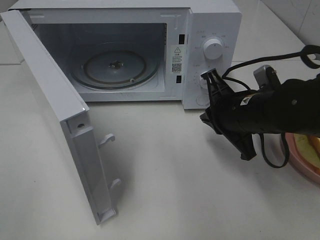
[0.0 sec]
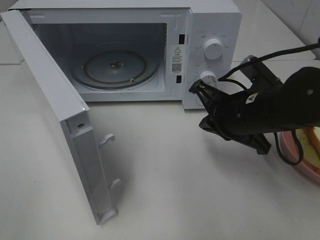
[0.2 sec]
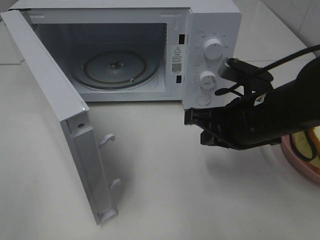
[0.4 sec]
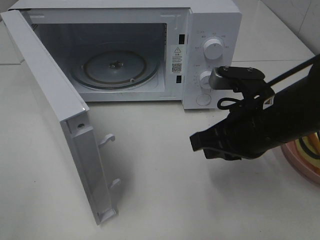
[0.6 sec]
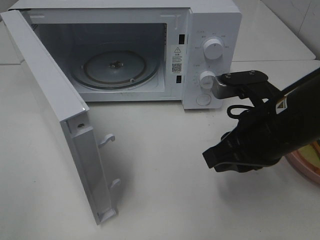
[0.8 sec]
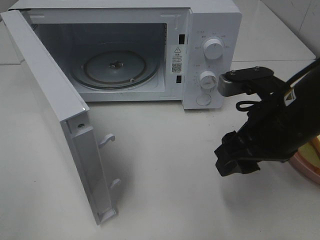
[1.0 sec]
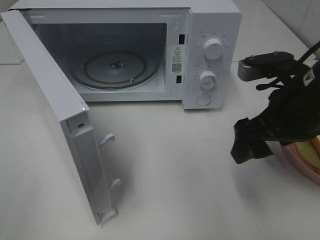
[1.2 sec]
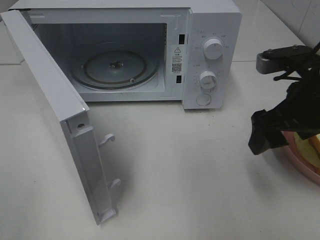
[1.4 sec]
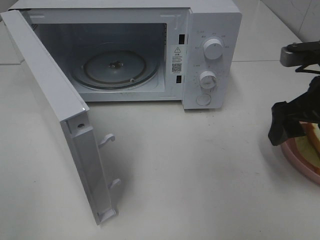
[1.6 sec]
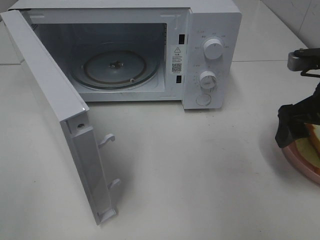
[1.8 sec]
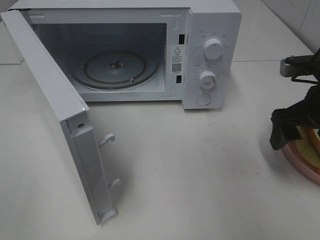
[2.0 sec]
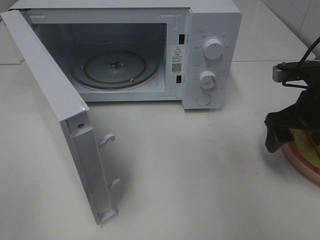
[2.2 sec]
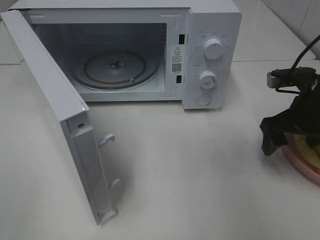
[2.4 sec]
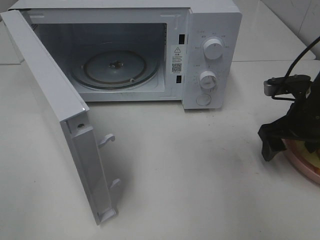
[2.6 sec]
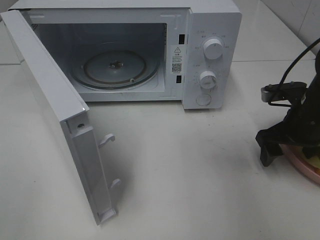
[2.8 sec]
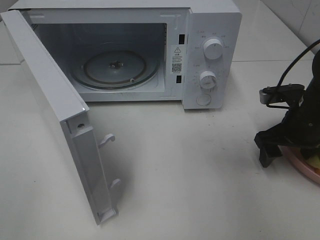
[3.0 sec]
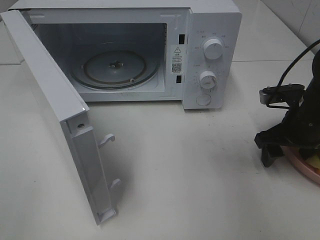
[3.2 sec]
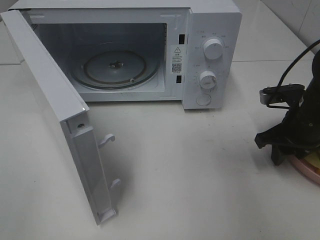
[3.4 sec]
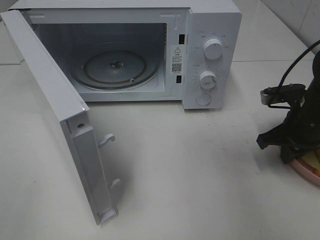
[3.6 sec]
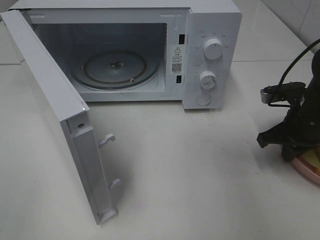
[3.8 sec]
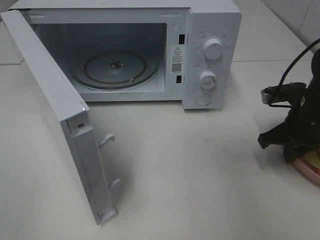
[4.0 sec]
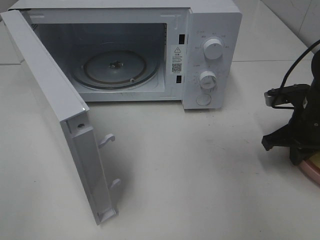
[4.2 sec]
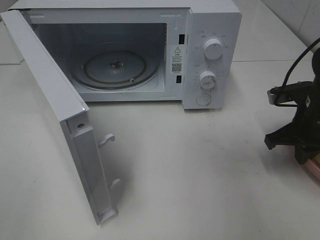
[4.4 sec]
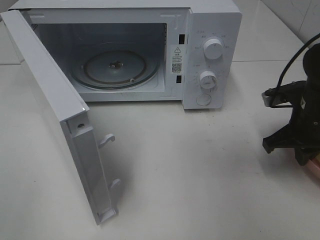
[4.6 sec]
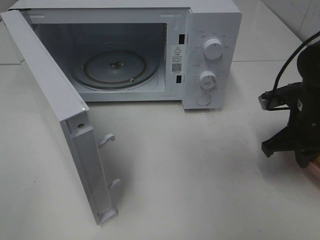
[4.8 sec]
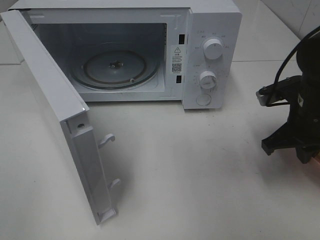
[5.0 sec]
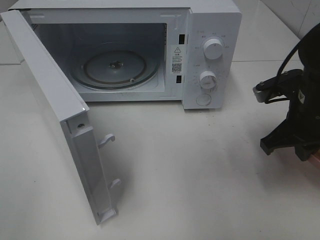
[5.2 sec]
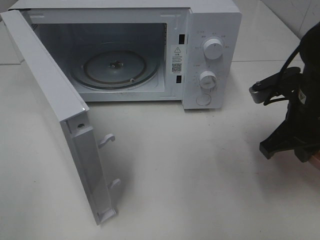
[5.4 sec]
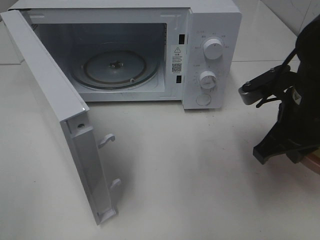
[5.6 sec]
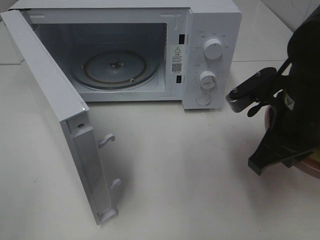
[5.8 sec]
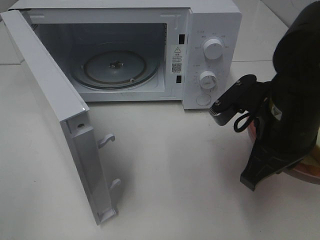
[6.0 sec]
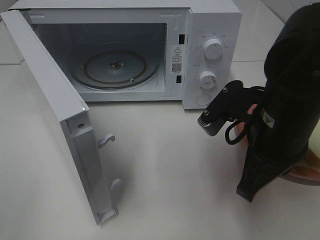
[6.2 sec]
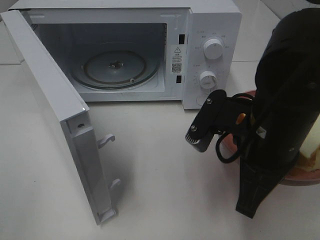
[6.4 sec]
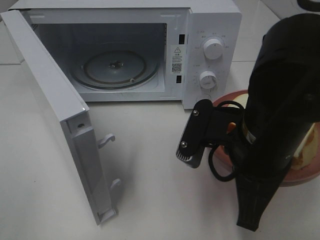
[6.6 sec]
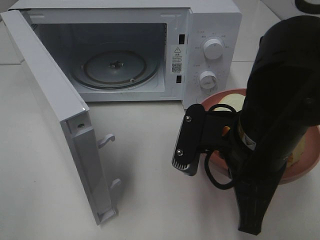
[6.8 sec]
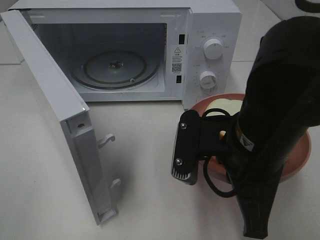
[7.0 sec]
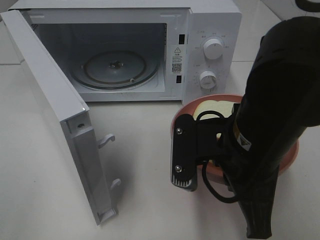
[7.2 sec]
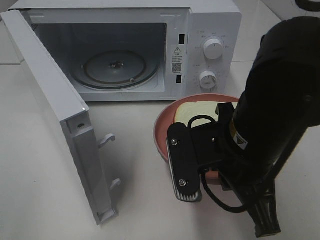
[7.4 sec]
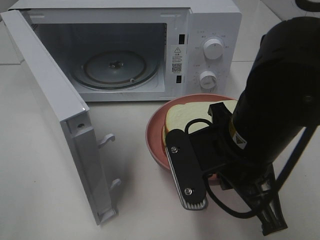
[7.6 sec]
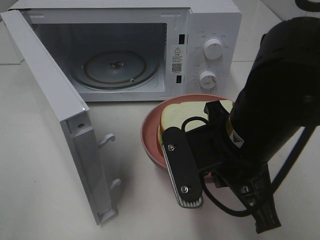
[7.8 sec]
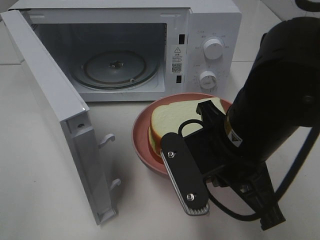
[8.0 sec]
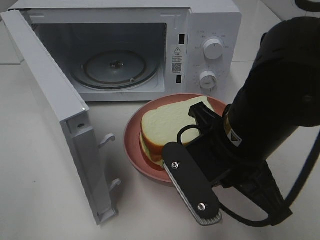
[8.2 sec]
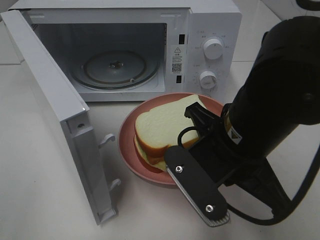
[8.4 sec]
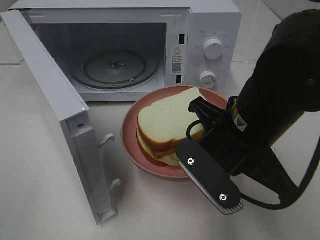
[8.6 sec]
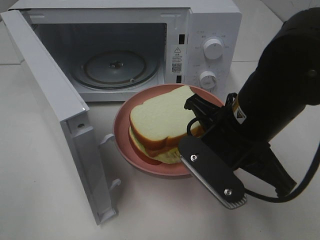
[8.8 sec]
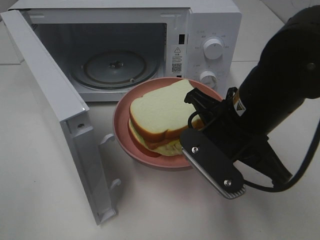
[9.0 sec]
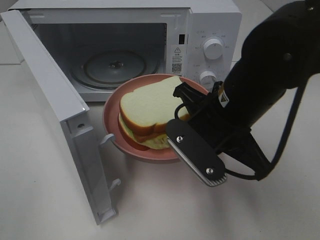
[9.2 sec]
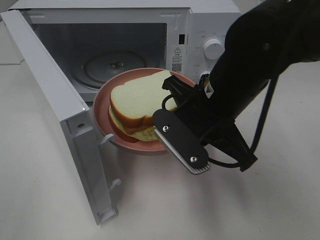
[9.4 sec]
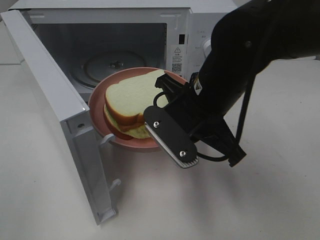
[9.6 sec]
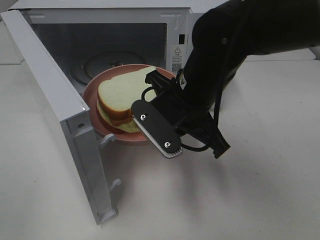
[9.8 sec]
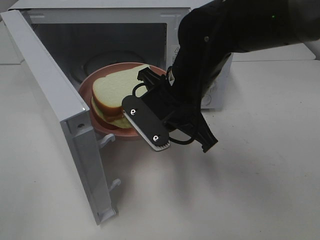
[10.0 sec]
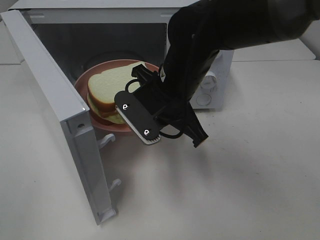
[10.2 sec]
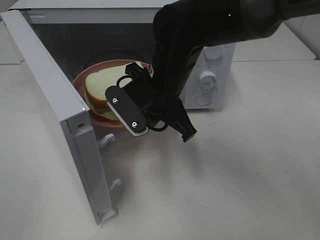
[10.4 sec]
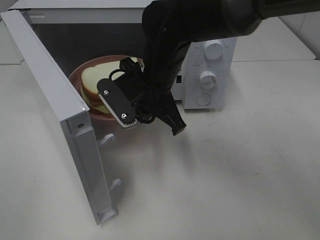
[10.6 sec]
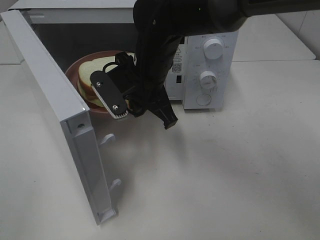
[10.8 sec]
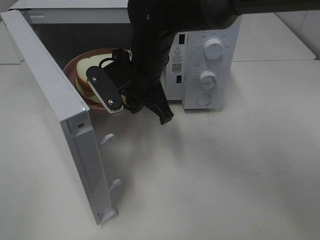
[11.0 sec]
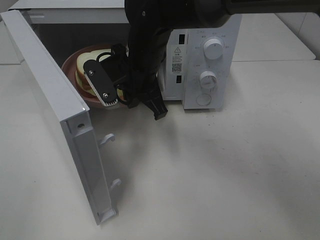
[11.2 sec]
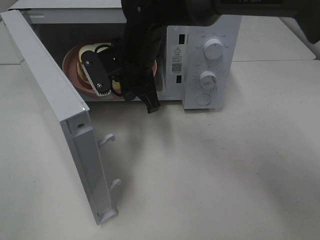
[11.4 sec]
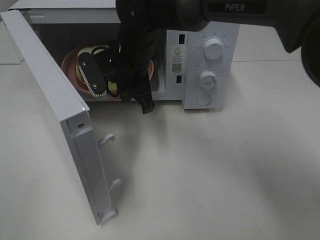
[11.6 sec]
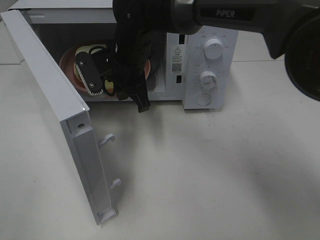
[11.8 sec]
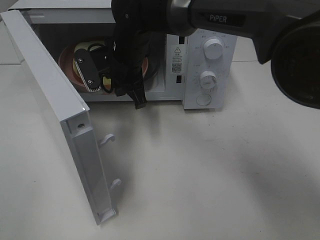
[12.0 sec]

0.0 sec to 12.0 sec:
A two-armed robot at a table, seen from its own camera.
Task of the whole recording: Heat Sandwich.
Step, 0.0 sec to 4.0 sec: Right hand: grab the plate with the sandwich.
0.0 sec to 1.6 sec: The right gripper moves to the right and upward, some 15 cm, and opens up.
1.6 sec to 3.0 sec: The right gripper is displaced downward and forward by roughly 10 cm.
3.0 sec to 4.4 sec: The right gripper closes up.
4.4 sec to 6.0 sec: The right gripper shifts some 15 cm to the left, backward and upward.
6.0 sec to 7.6 sec: The right gripper heads to the left, covering approximately 5 cm.
9.0 sec to 10.4 sec: The right gripper heads forward and to the left, covering about 15 cm.
10.4 sec to 12.0 sec: The right gripper travels forward and to the left by about 10 cm.

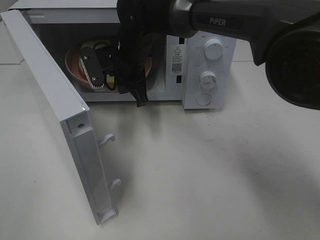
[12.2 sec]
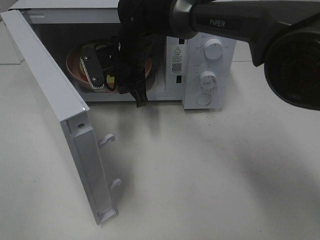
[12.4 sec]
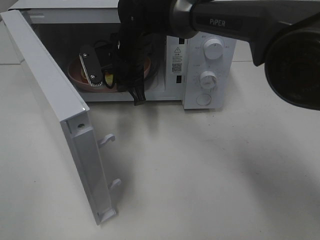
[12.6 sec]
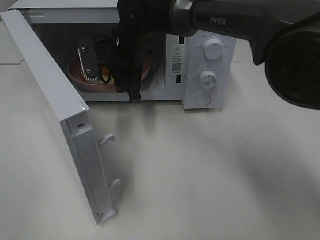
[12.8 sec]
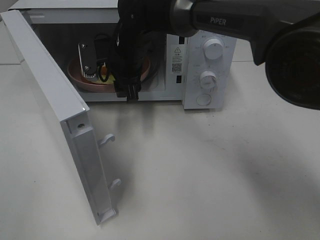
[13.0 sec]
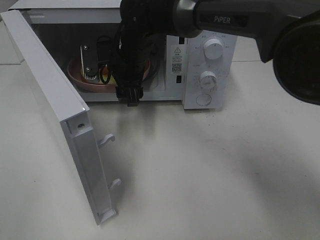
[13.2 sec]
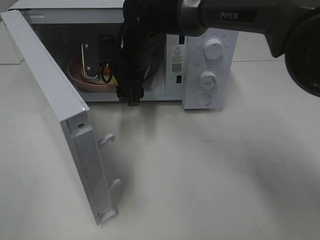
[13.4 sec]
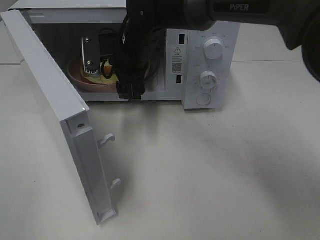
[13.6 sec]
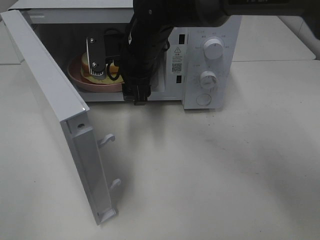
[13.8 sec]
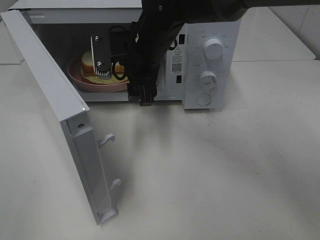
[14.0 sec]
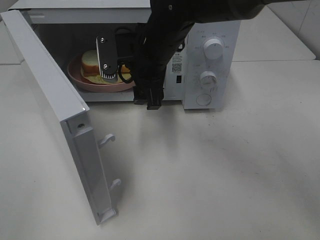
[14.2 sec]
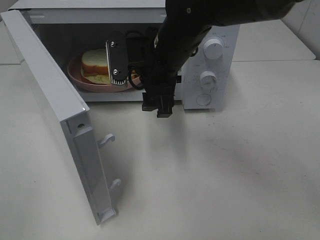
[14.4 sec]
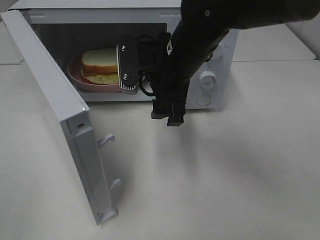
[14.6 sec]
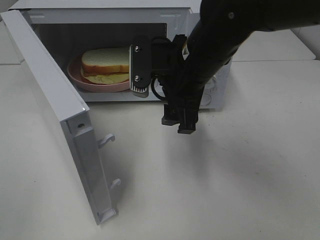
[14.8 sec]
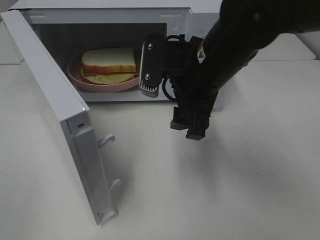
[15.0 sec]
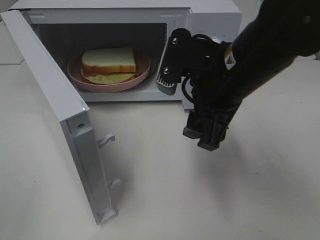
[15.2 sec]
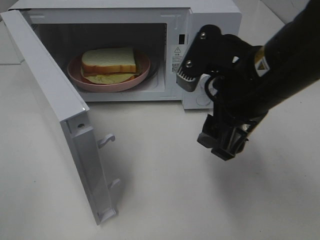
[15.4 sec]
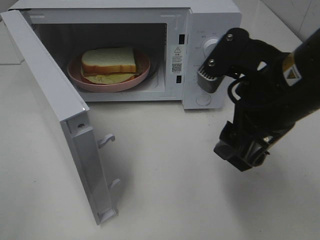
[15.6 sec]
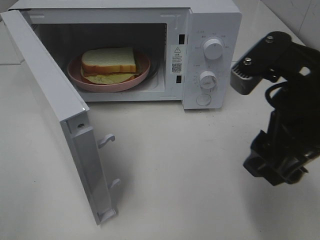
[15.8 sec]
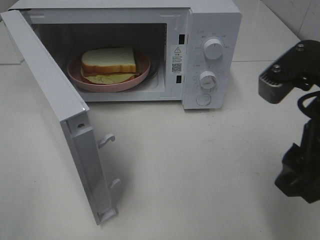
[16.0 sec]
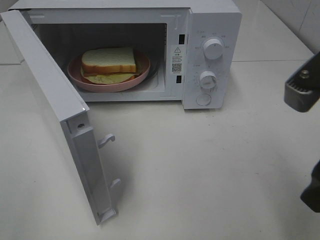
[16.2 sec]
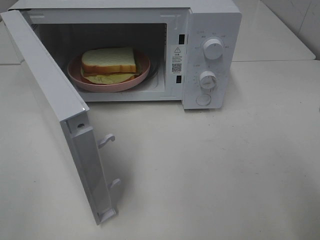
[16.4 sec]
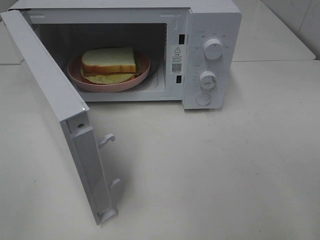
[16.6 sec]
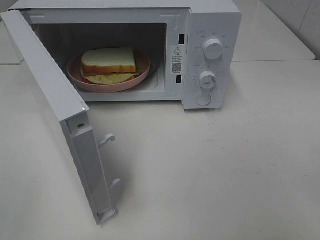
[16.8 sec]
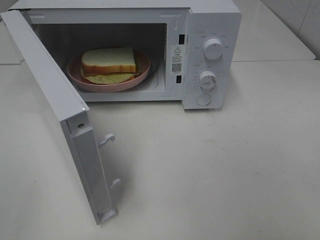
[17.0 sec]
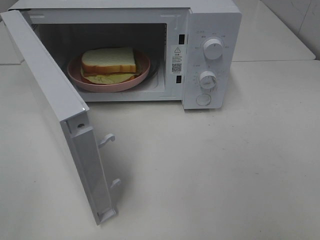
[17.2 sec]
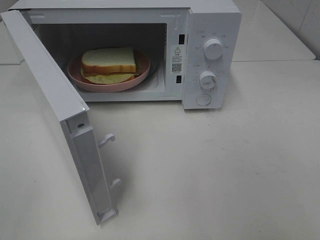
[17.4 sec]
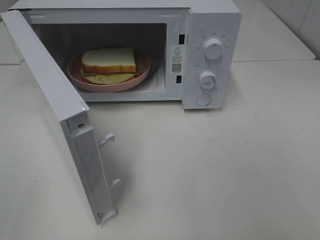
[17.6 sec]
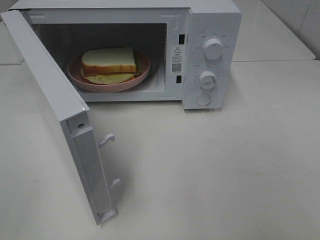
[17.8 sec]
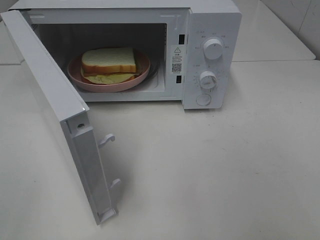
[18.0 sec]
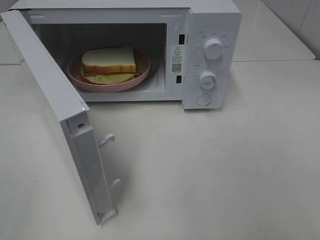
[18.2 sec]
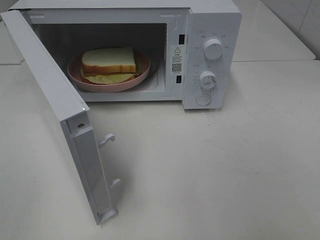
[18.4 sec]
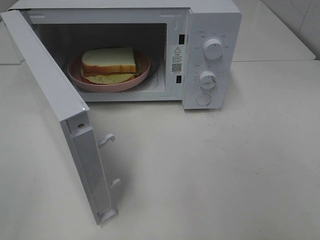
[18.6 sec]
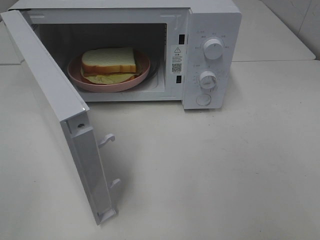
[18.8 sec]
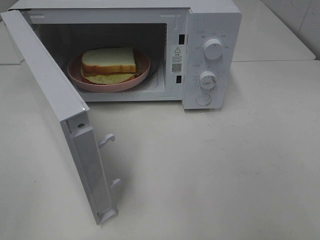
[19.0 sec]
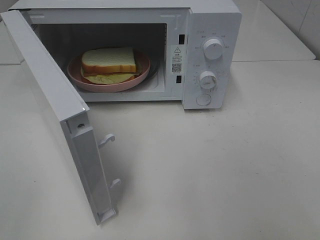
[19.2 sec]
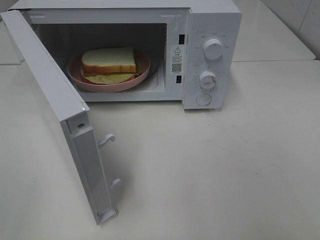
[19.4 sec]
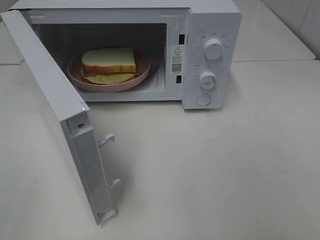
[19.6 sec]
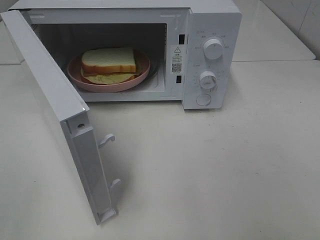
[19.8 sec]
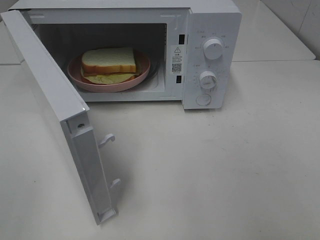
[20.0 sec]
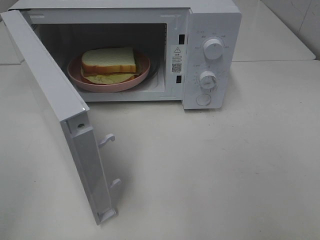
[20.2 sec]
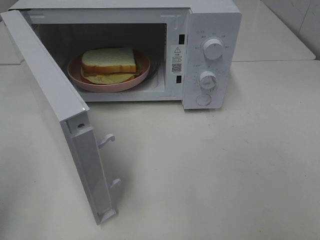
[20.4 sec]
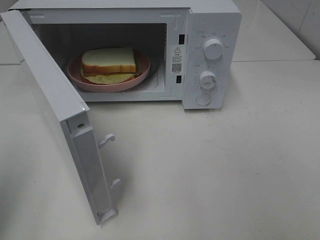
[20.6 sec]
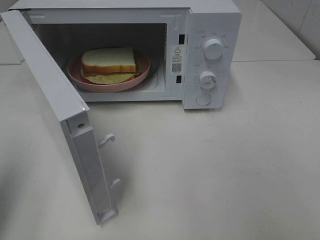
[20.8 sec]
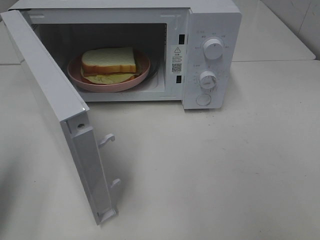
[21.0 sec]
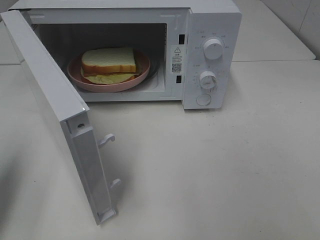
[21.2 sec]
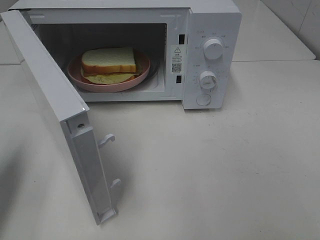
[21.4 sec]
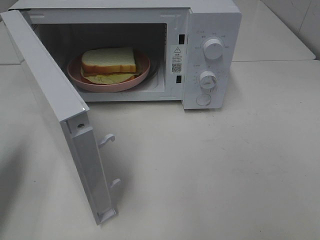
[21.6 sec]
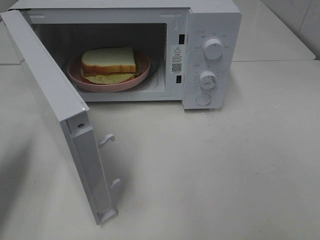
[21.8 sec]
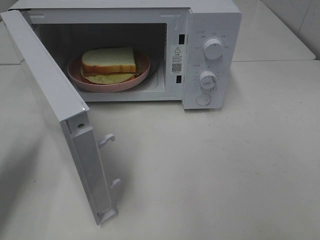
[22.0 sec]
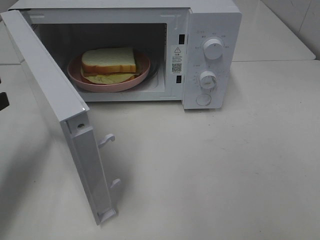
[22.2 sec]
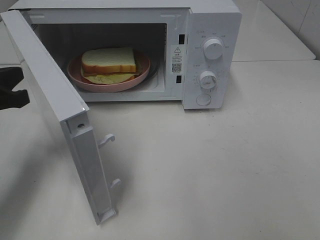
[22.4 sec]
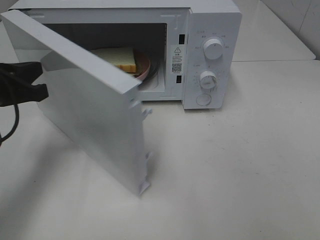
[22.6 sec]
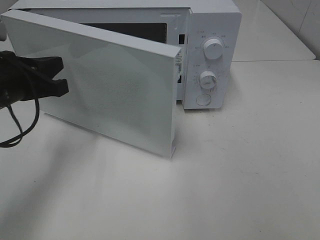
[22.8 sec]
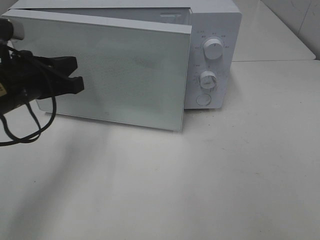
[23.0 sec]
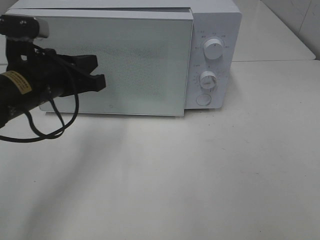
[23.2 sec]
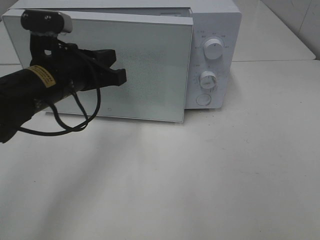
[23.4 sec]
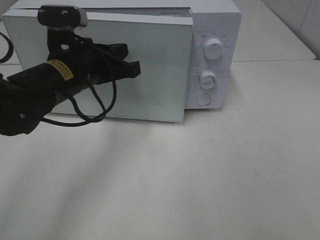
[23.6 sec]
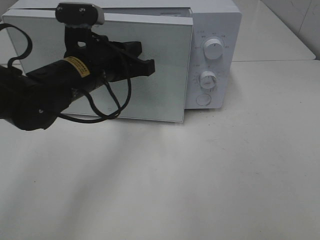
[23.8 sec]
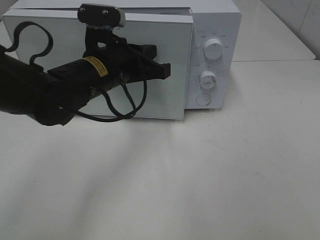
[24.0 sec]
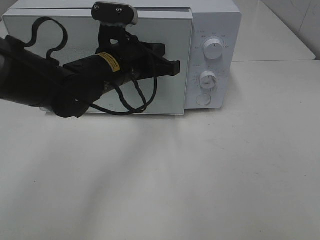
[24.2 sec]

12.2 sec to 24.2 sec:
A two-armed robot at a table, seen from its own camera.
Task of the whole recording: Heat Sandwich.
Step, 12.2 sec to 14.4 sec: Right hand: place the plate in the microwave.
12.2 sec to 13.8 sec: The right gripper opens up.
13.8 sec to 15.2 sec: The right gripper travels backward and to the right by approximately 20 cm.
15.2 sec to 16.6 sec: The right gripper travels backward and to the right by approximately 20 cm.
18.2 sec to 19.8 sec: Both grippers stay about where they are.
19.8 sec to 21.2 sec: The left gripper heads forward, covering roughly 15 cm, and closes up.
21.2 sec to 22.6 sec: The left gripper goes some 15 cm forward and to the right.
22.6 sec to 24.2 sec: The left gripper heads to the right, covering approximately 20 cm.
